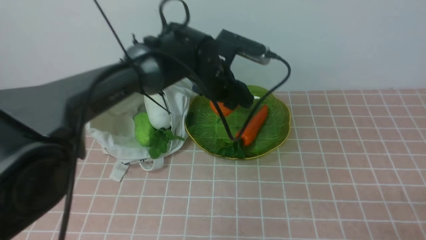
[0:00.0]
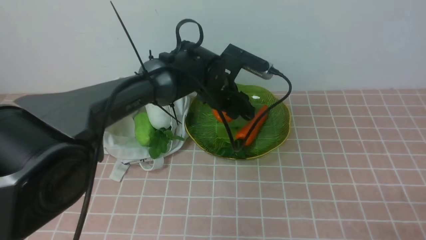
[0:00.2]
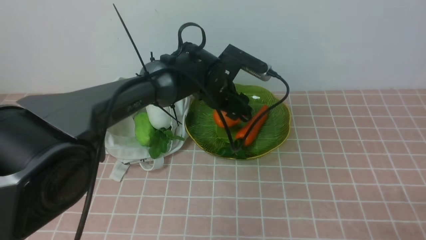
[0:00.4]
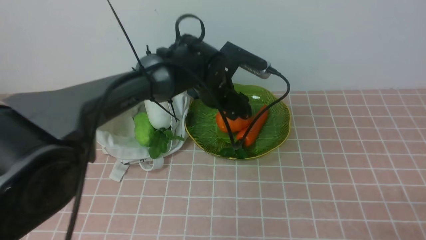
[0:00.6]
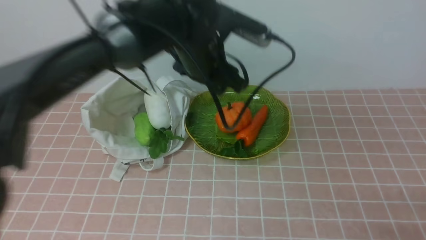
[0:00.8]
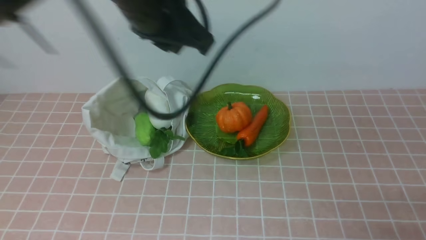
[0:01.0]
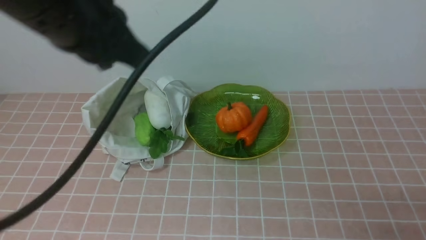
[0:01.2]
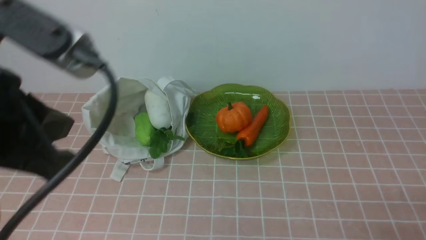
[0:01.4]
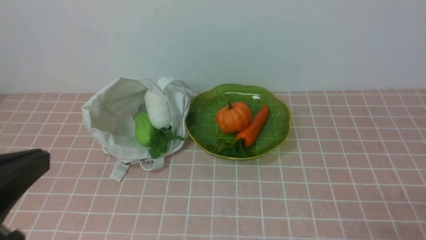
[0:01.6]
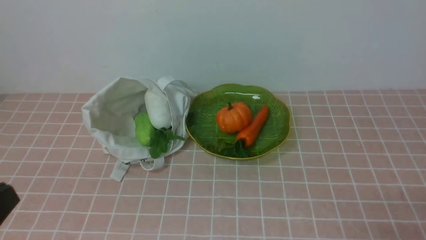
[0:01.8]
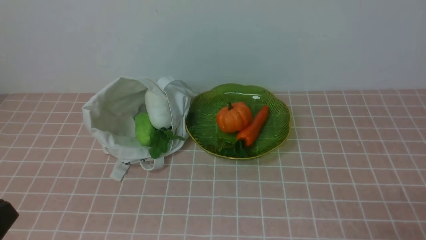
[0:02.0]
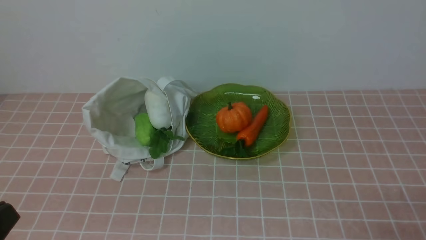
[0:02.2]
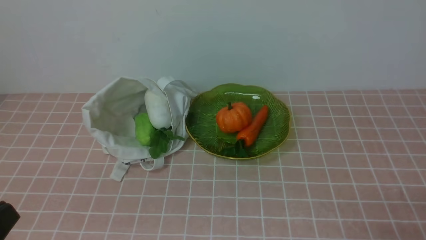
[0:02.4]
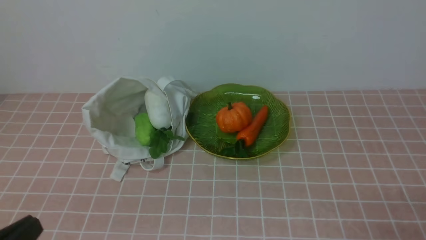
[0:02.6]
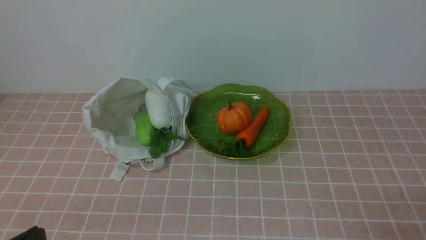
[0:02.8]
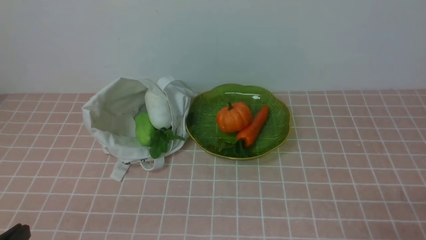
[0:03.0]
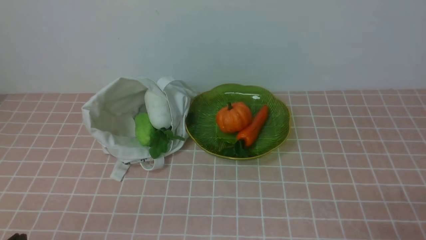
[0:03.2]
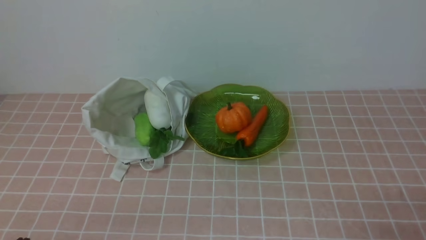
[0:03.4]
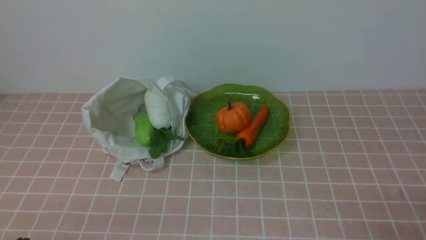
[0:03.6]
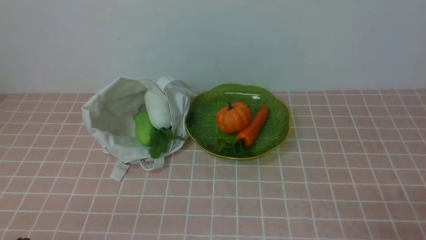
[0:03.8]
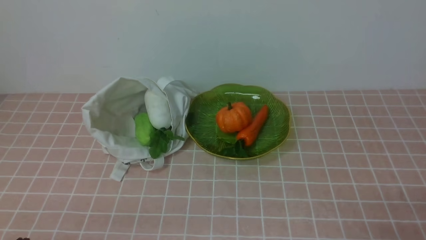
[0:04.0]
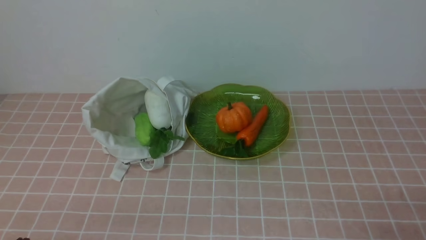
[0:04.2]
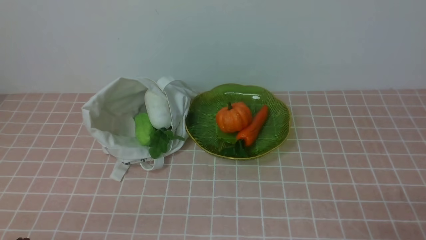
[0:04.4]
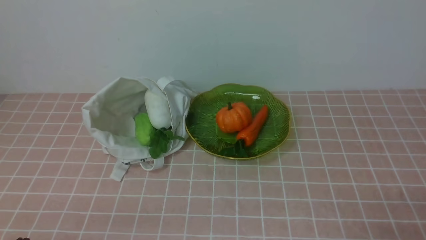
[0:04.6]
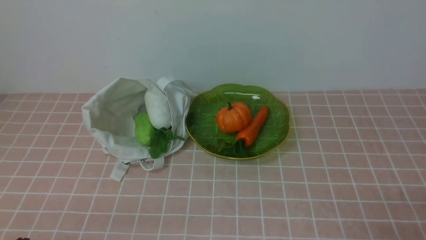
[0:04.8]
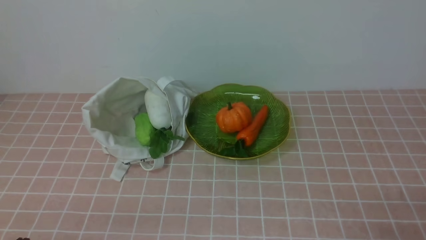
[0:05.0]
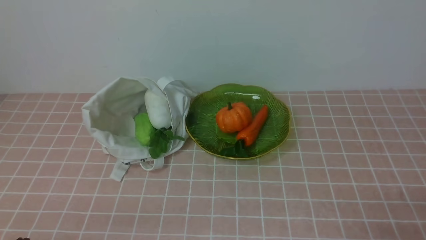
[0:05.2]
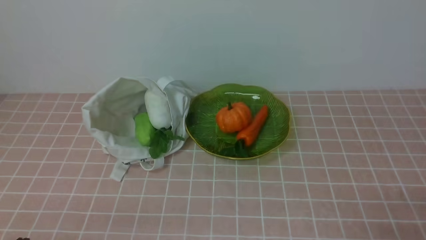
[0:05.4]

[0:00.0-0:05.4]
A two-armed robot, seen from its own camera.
Task of the whole recording: take vegetables from bag on pink coffee tablecloth place on plate.
0:00.0 to 0:01.4: The left gripper moves backward, to the left and upward, about 40 cm, and closes its fingers.
0:01.4 to 0:02.8: The left gripper heads downward and backward, covering approximately 20 cm.
0:04.0 to 0:05.4: The two grippers keep their place.

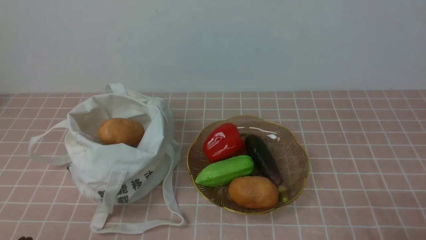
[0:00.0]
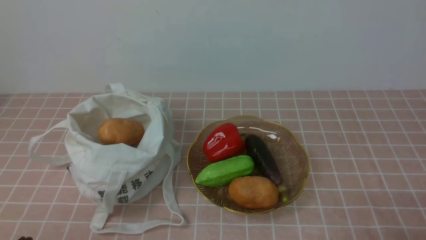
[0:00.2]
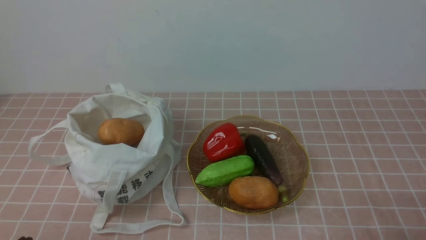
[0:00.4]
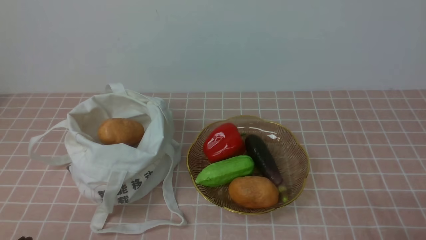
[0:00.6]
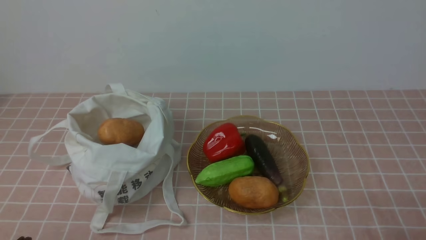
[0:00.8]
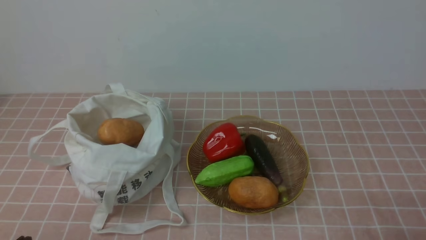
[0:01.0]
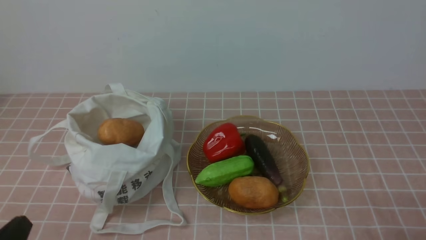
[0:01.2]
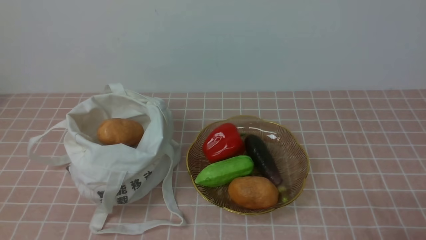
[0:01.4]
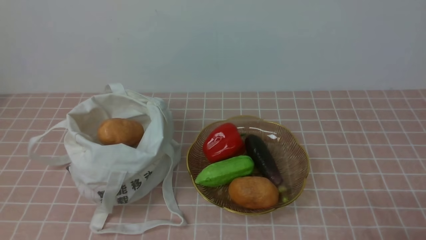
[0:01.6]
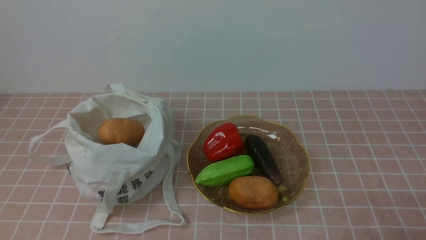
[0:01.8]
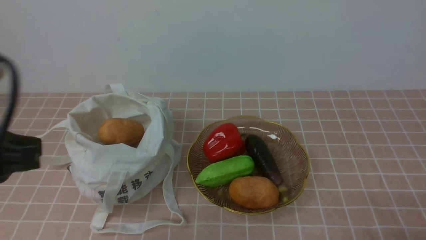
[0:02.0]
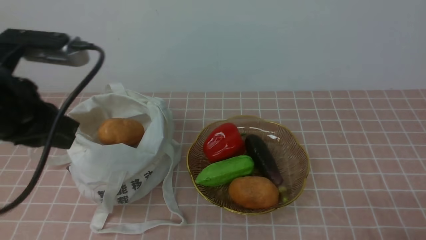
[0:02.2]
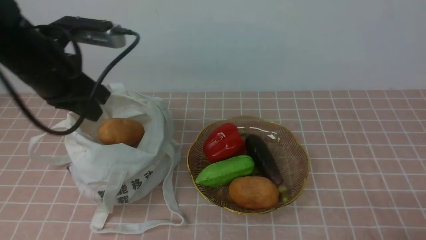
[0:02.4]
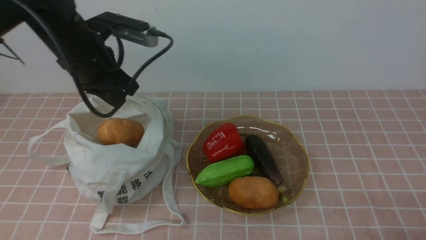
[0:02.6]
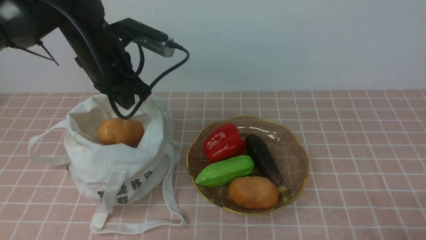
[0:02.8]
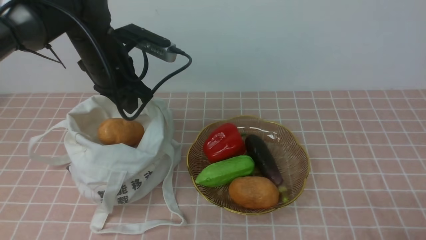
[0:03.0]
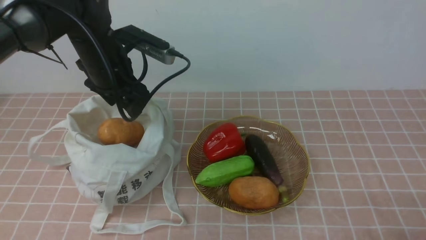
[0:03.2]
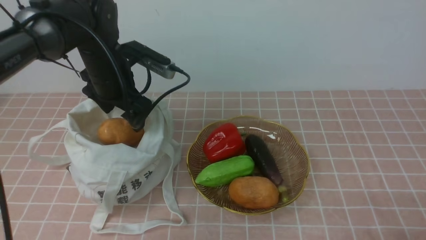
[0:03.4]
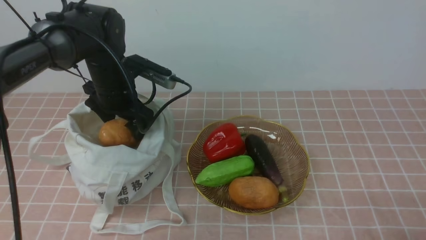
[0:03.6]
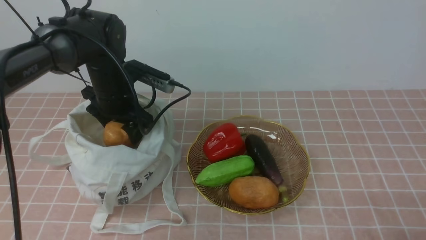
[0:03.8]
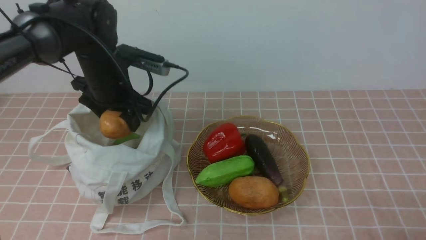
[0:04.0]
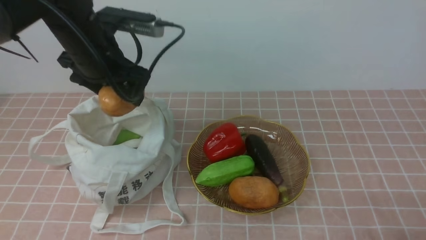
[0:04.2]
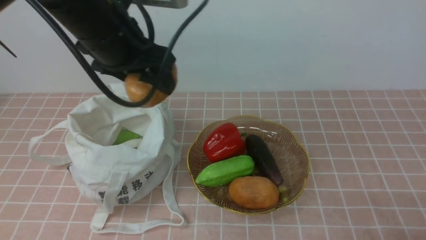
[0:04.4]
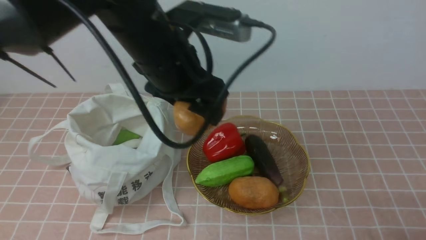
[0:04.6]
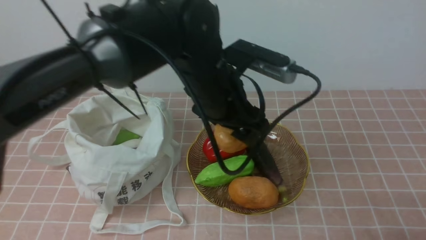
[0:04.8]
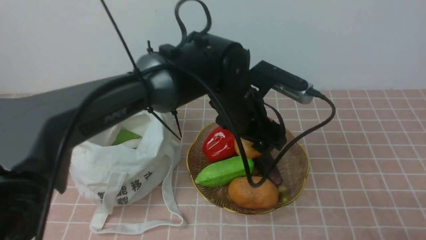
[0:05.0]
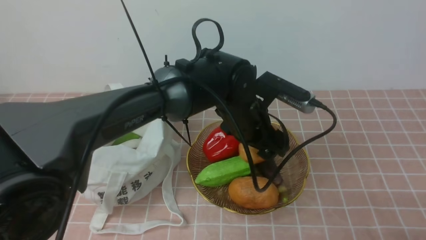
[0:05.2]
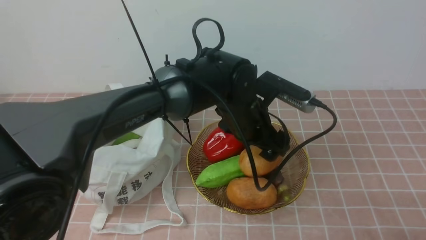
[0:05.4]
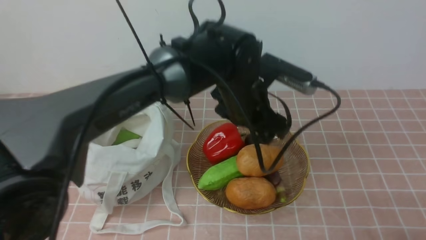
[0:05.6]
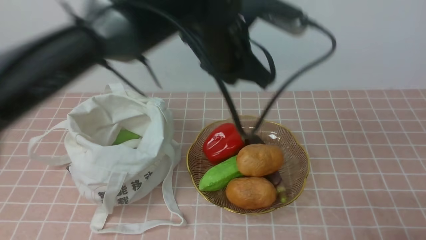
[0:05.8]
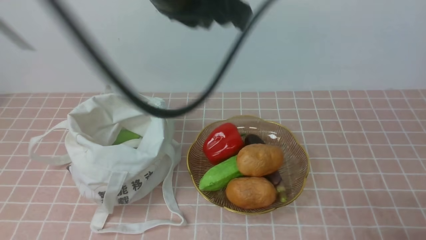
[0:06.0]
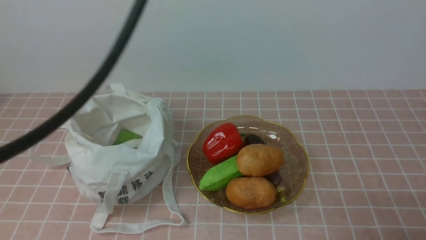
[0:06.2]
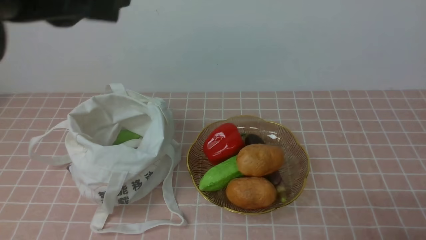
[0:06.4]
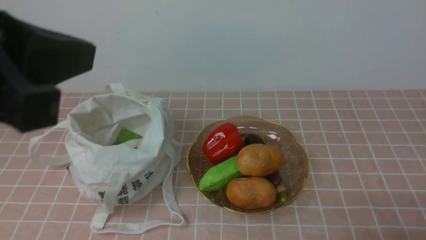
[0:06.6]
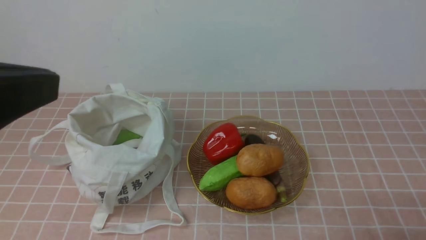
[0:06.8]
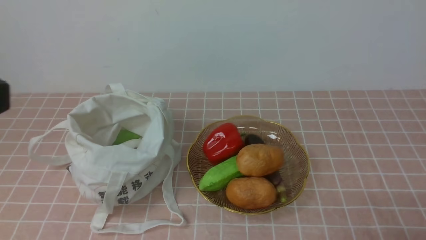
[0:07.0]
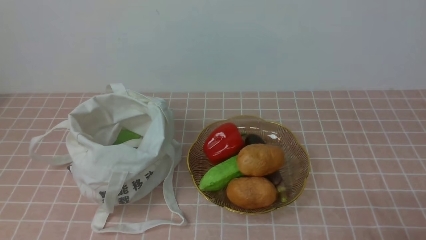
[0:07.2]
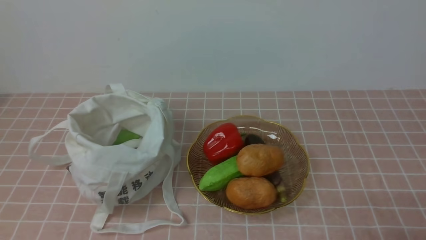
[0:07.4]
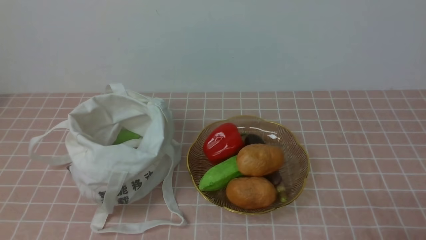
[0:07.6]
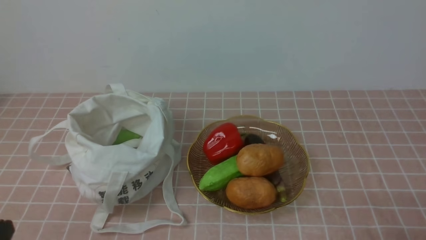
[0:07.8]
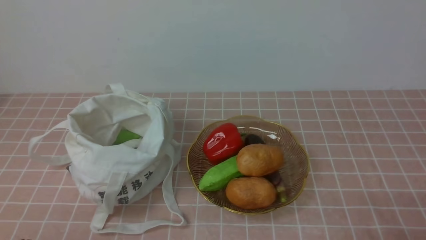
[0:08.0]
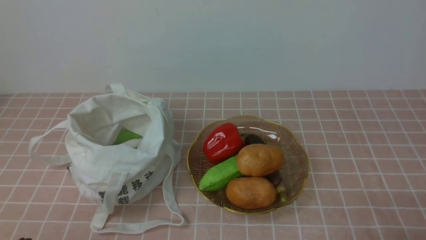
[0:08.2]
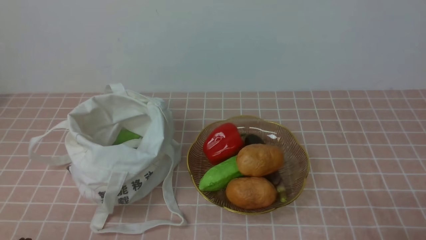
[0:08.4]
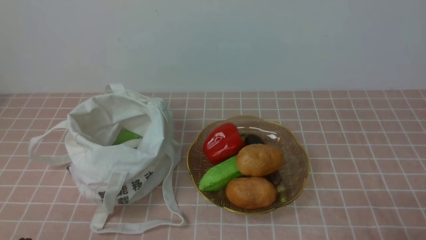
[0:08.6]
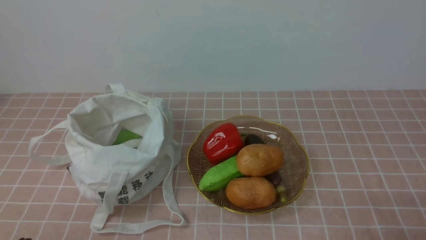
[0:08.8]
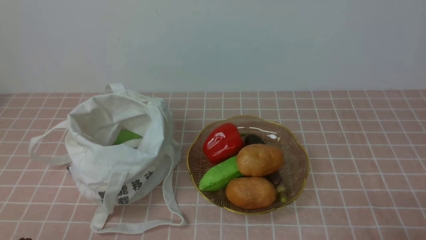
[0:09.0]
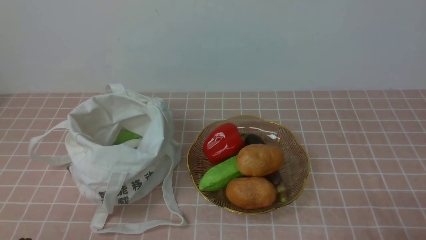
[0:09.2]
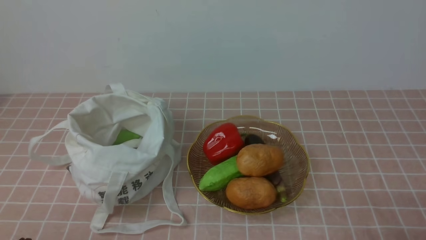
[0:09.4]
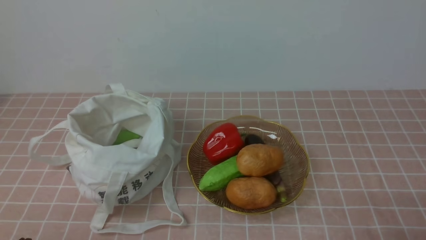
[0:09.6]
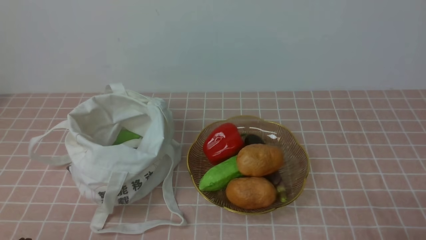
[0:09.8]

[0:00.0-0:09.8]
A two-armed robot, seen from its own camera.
Task of the whole recording: take vegetables from bag on pink coffee tablecloth place on plate.
Step, 0:00.0 to 0:03.8: Grasp the potato with left gripper.
Step, 0:04.0 to 0:05.6: Place the potato on the plate with left gripper.
0:01.4 to 0:02.8: The left gripper travels forward by roughly 35 cm.
0:02.8 to 0:04.2: The left gripper opens its fingers.
0:04.2 to 0:05.6: The left gripper shifts approximately 20 cm to the right.
0:05.6 to 0:07.0: The left gripper is displaced backward, to the left and upward by some 40 cm, and closes.
0:07.0 to 0:08.4: The left gripper moves downward, about 25 cm.
0:08.4 to 0:09.8: Both grippers stay put.
